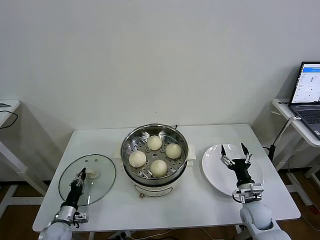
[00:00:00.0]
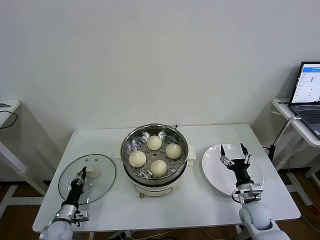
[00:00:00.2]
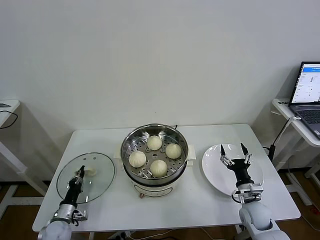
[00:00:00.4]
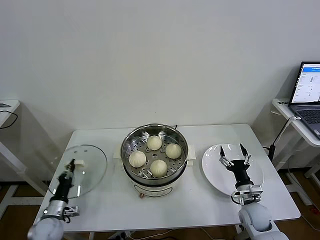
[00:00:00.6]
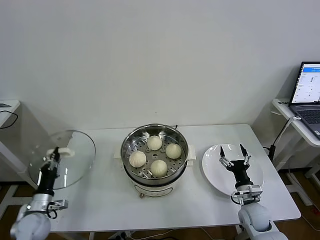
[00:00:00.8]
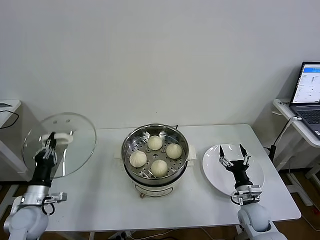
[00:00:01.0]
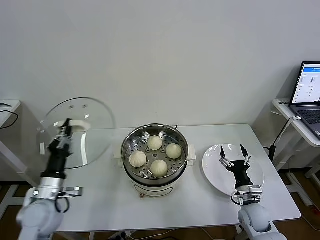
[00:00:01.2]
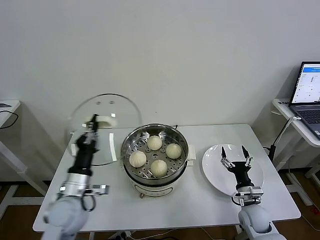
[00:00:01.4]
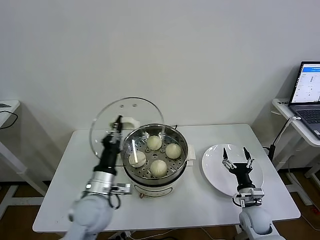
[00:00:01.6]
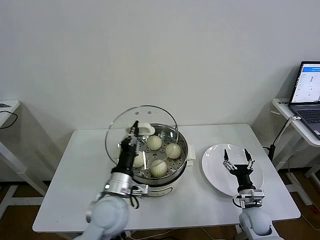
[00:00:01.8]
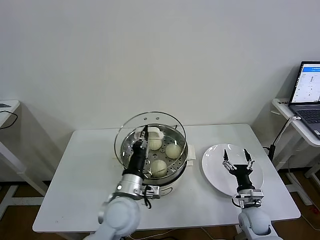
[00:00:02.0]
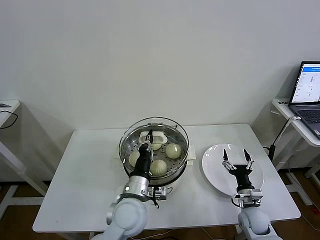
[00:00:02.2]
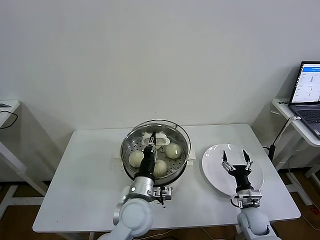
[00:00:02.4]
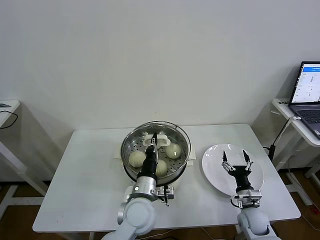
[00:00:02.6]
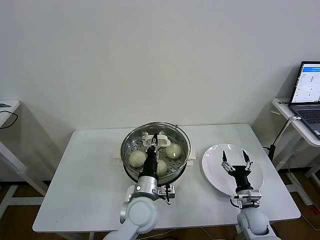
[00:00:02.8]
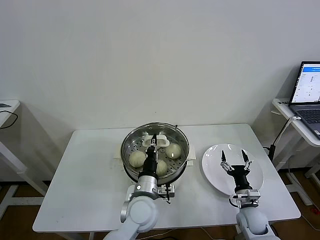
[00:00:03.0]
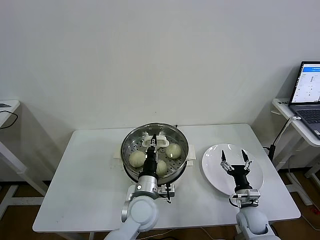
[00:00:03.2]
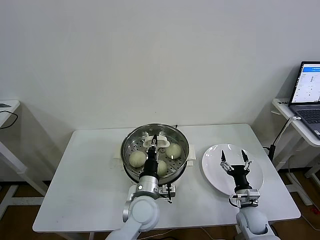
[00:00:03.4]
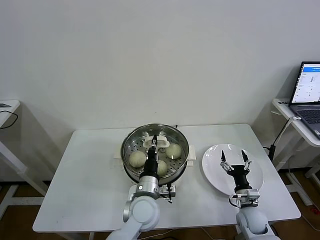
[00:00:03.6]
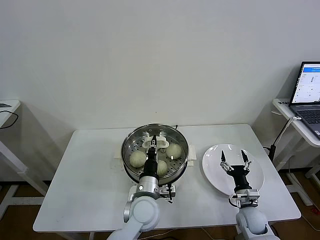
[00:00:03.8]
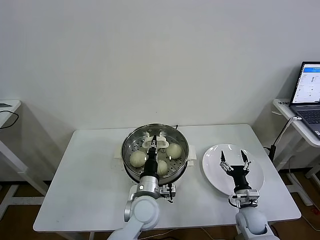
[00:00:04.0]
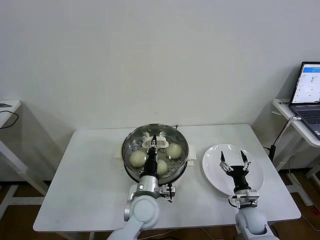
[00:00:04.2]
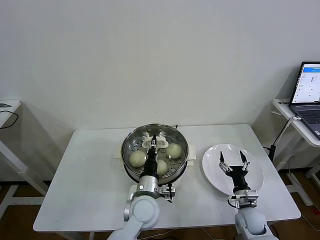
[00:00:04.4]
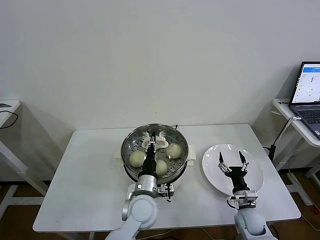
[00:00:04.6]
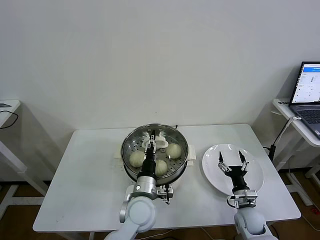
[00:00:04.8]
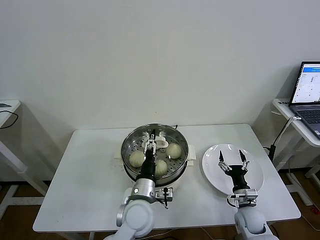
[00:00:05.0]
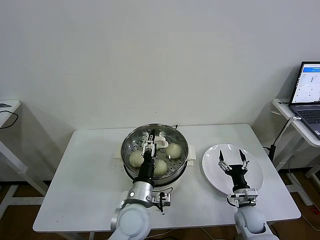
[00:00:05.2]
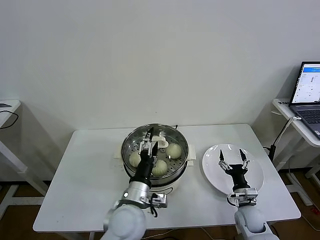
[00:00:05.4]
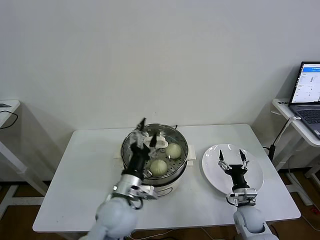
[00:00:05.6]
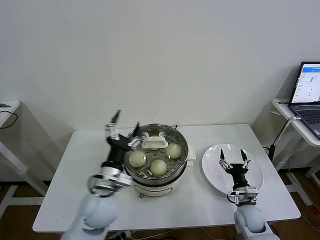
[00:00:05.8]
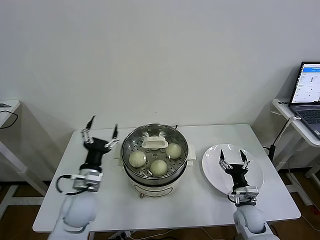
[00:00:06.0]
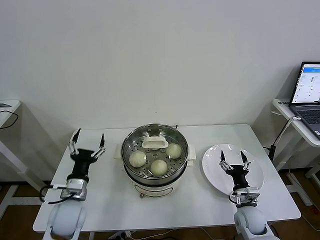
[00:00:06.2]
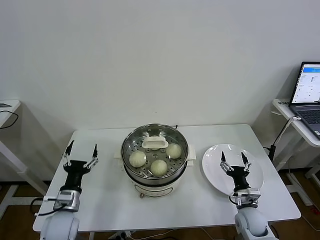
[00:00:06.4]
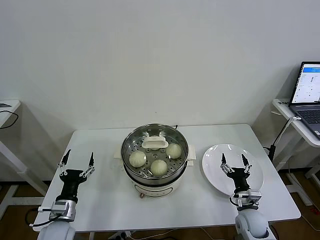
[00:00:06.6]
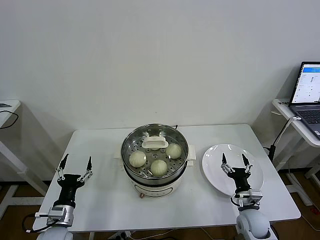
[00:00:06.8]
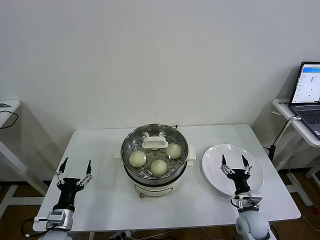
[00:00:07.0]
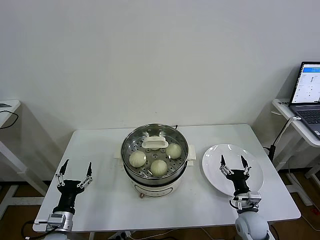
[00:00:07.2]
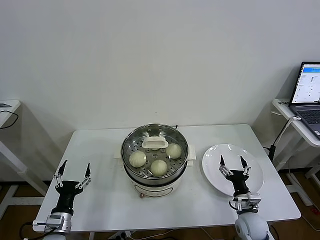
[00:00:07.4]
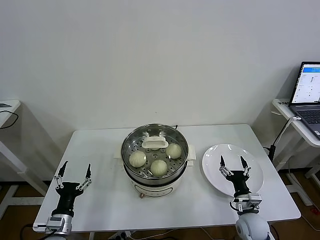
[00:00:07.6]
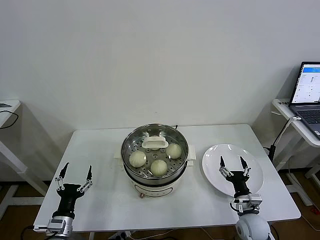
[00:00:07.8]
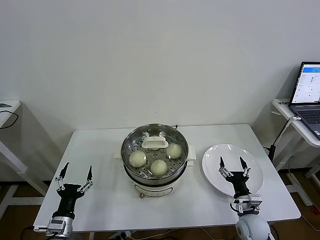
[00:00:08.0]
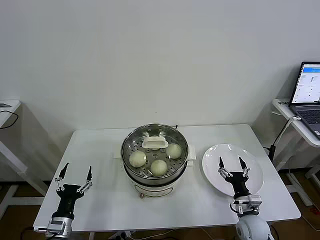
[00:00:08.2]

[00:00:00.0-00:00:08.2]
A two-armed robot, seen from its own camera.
Task of the whole recording: take steamed baozi put them in steamer then cover it.
Step, 00:00:00.4 to 00:00:04.8: Place the pot lid on the steamer with left gripper.
00:00:00.0 to 00:00:01.6: The left gripper travels upward and to the right by roughly 30 cm.
00:00:01.6 to 00:00:03.2: The left gripper travels to the right by about 15 cm.
00:00:03.2 to 00:00:05.0: The left gripper opens up.
00:00:05.0 to 00:00:06.6: The left gripper is displaced to the left by approximately 25 cm.
00:00:06.6 to 00:00:08.2: The left gripper moves backward, approximately 5 cm.
